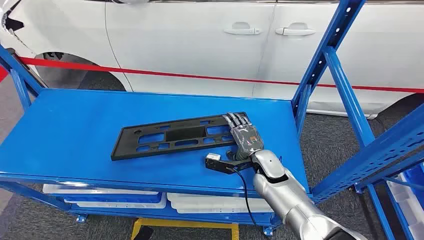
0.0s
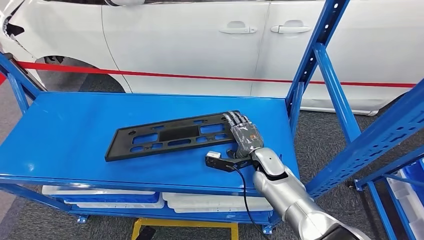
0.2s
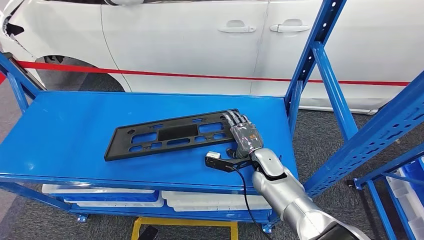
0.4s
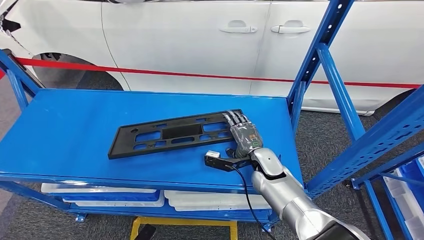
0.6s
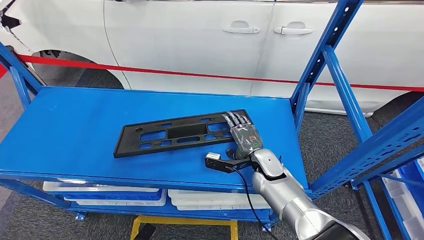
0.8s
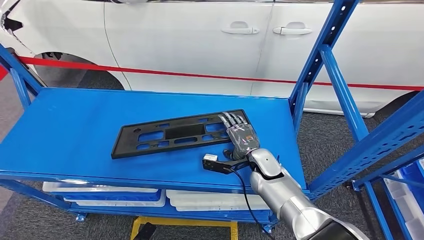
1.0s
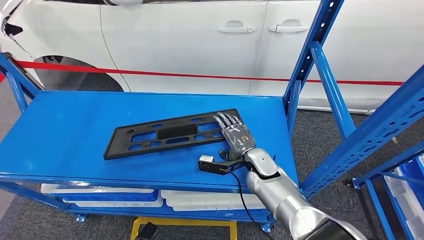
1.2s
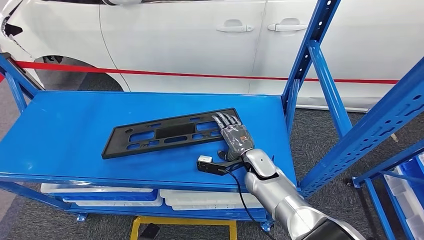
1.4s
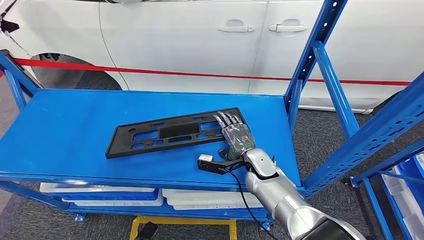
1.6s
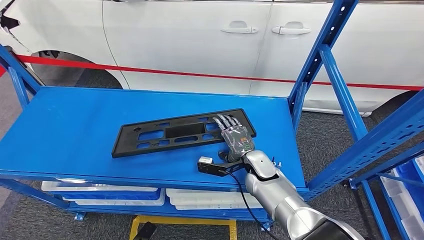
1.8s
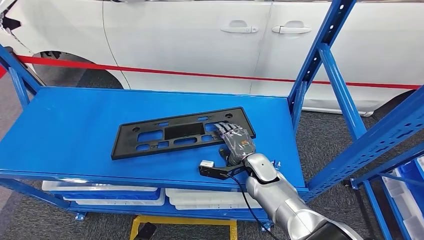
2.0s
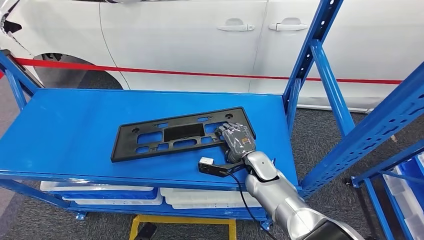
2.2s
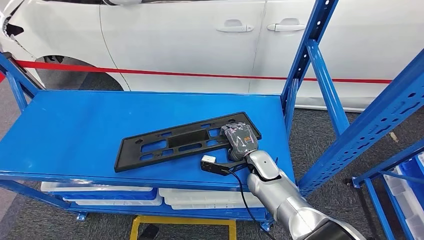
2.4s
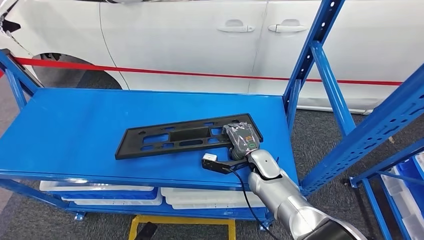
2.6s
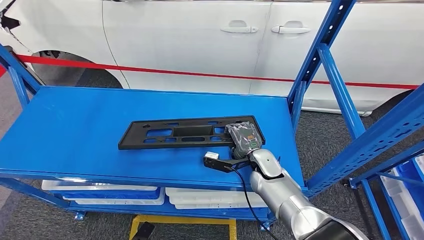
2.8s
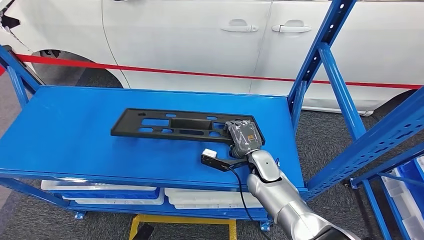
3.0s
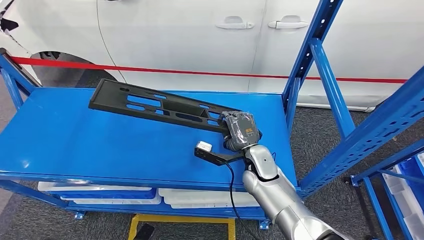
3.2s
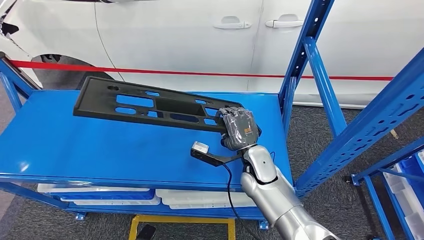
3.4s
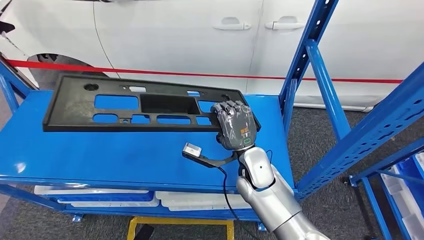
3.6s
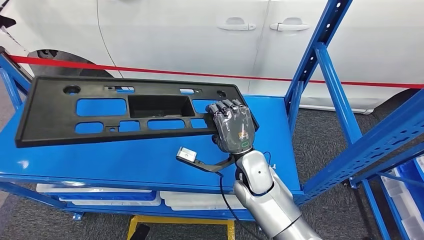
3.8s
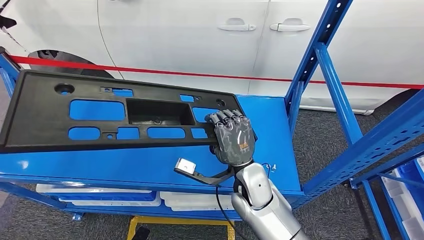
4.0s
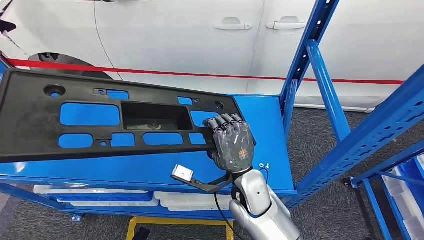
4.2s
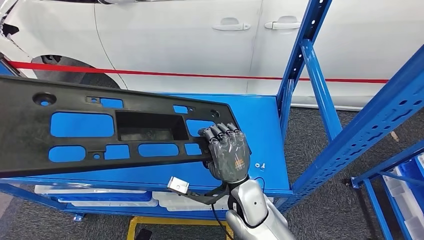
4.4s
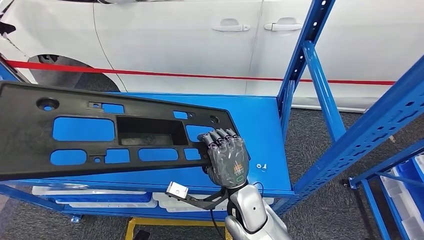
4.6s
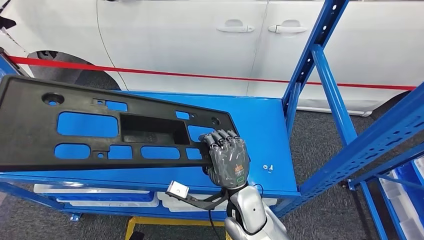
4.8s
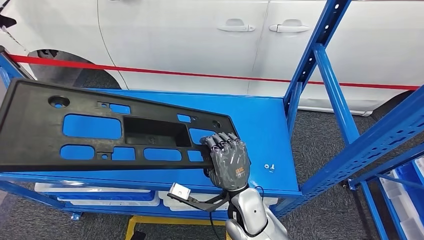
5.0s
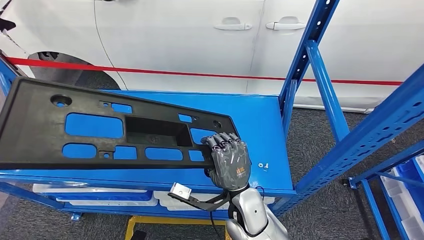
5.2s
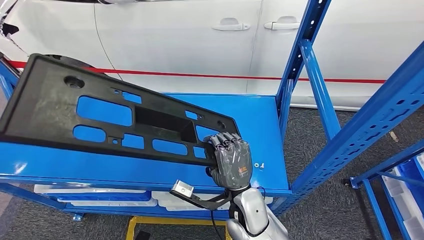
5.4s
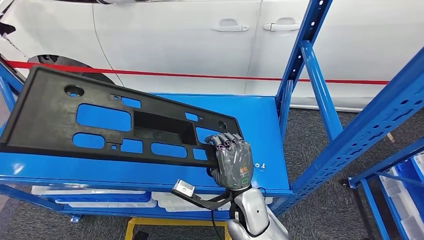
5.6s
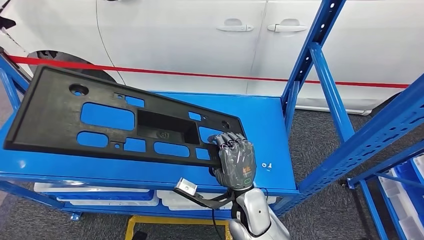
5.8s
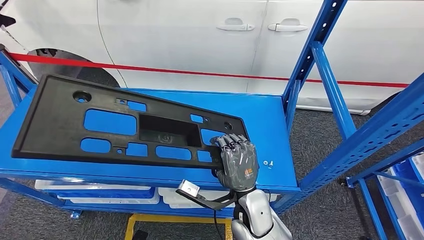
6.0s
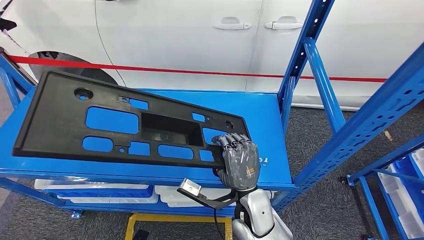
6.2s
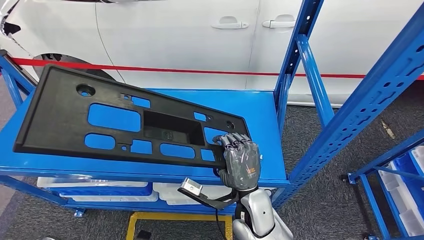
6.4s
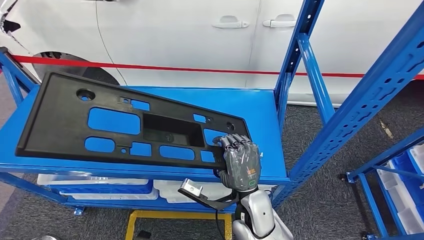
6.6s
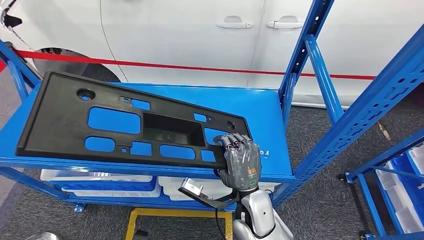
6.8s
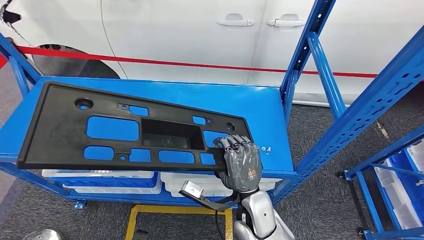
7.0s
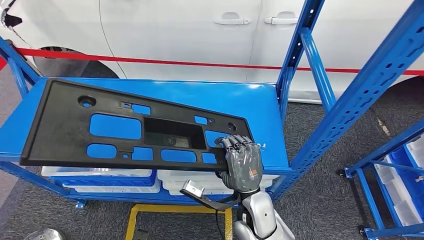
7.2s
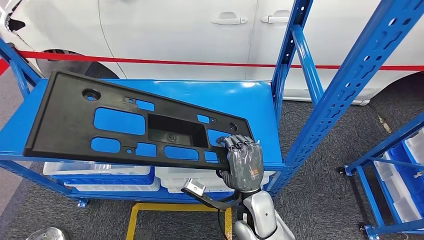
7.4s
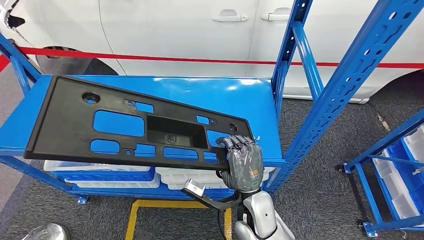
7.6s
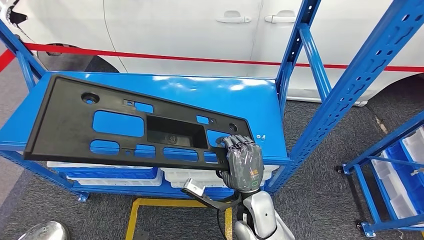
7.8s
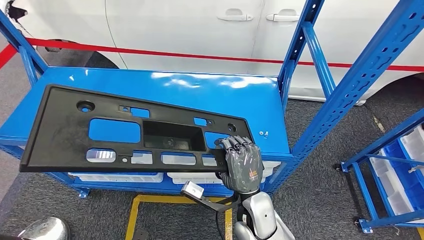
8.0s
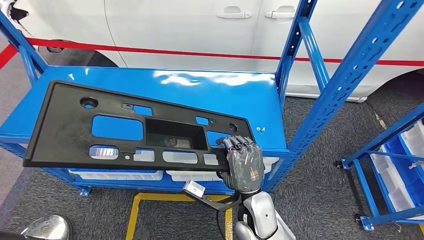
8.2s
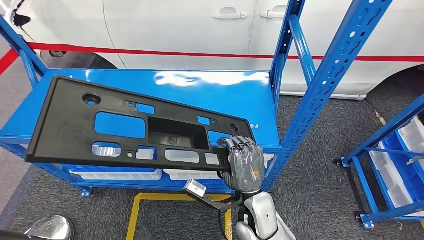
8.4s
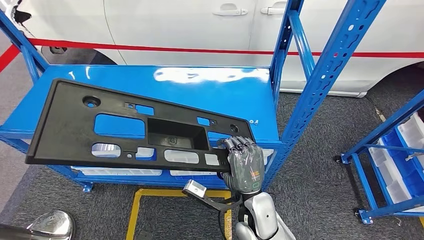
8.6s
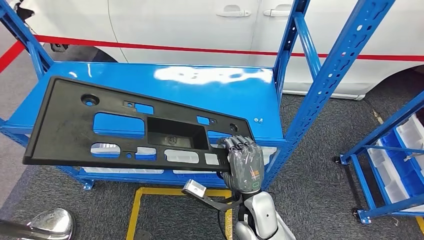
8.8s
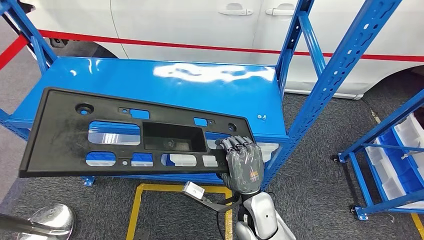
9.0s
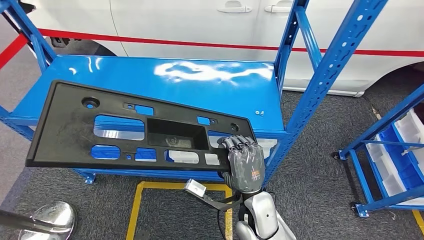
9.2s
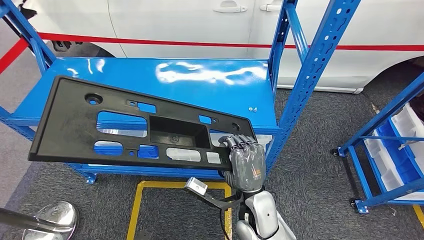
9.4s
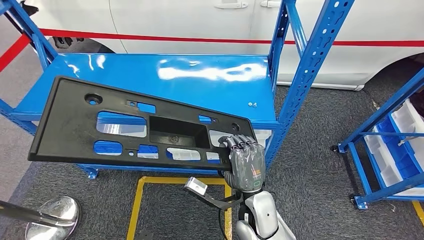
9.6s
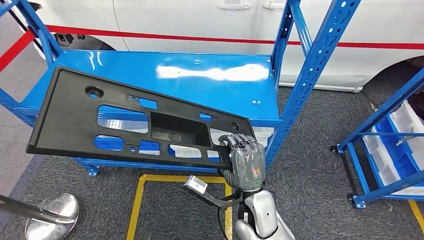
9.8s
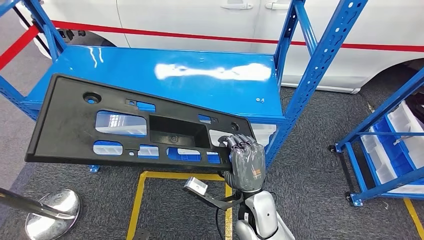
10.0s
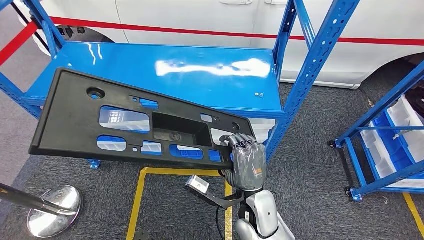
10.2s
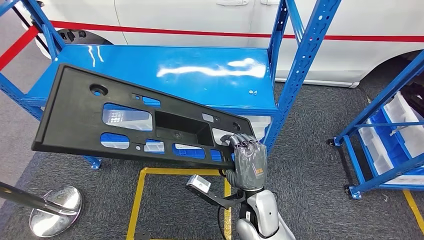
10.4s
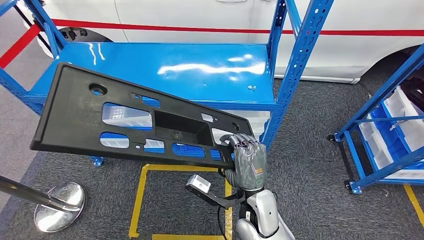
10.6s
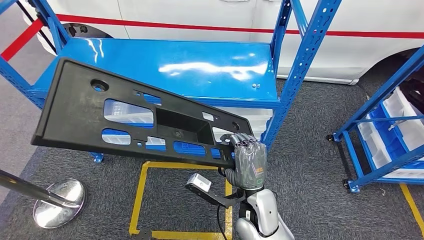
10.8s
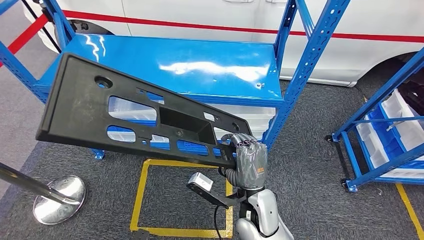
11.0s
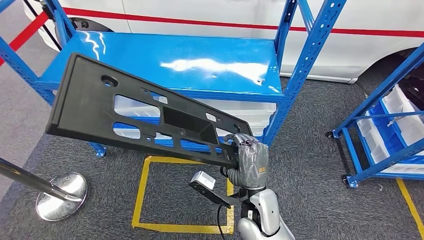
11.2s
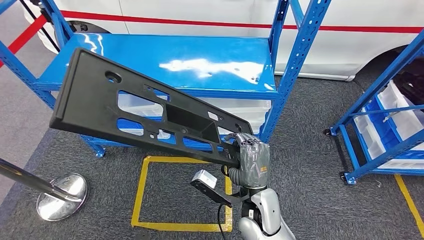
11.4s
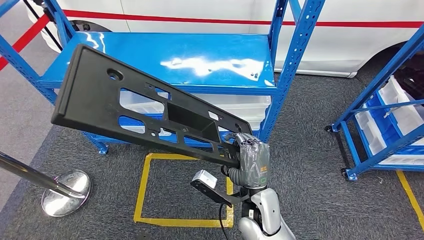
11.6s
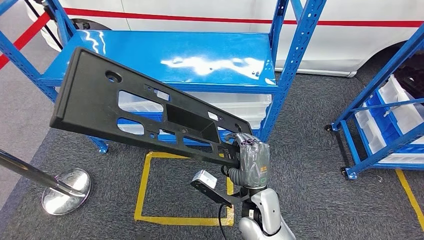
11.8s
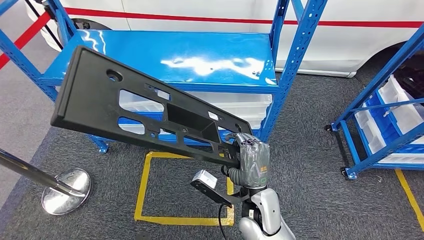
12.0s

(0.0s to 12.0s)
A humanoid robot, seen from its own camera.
Step, 0.0s - 6.8s: Pick up the large material from the shelf.
1.6s - 3.0s: The hands move only a little.

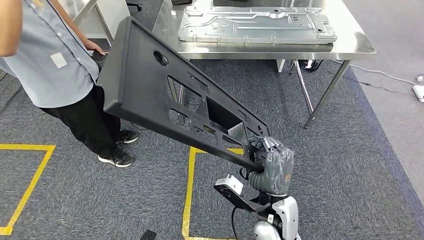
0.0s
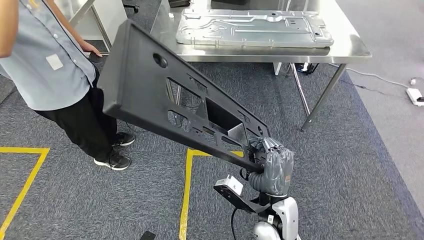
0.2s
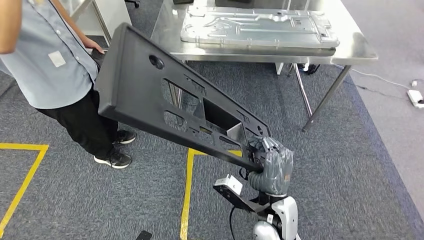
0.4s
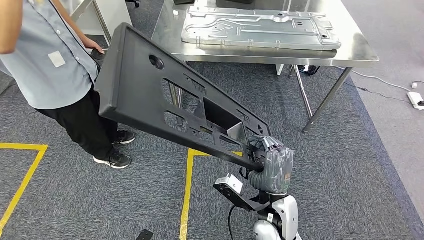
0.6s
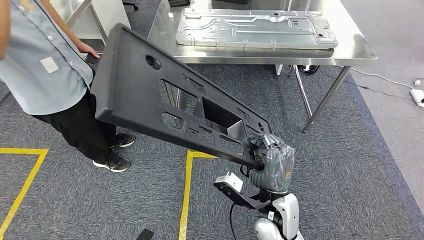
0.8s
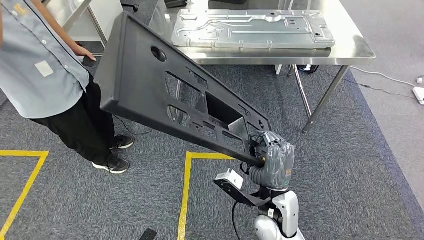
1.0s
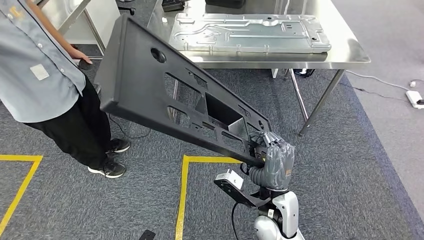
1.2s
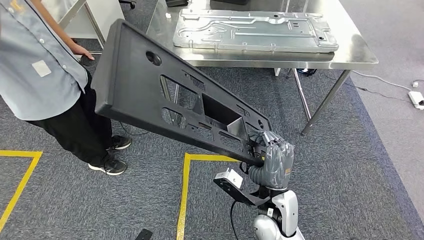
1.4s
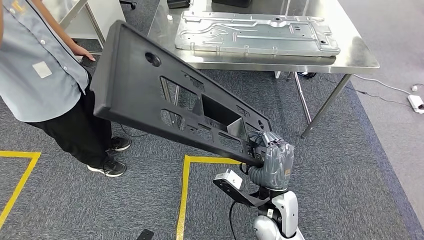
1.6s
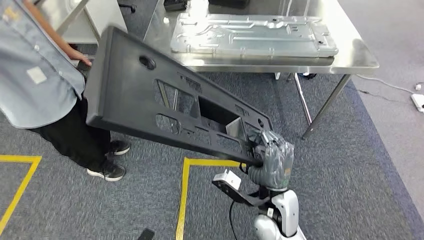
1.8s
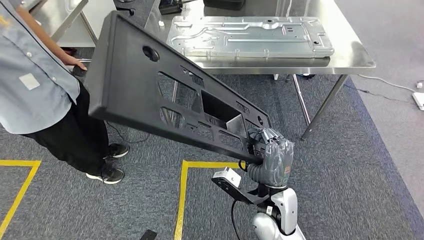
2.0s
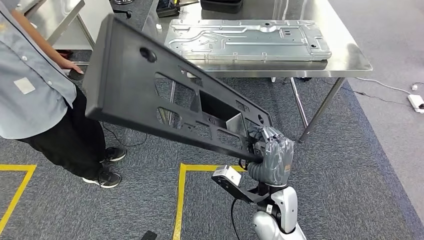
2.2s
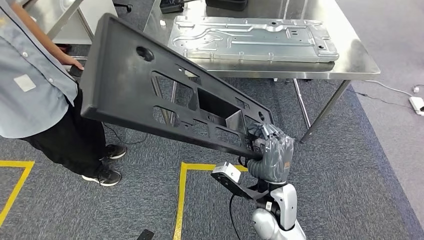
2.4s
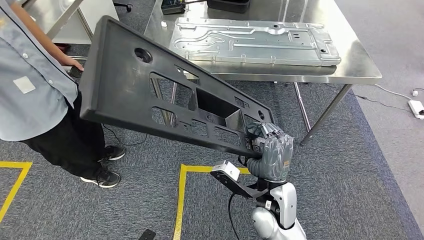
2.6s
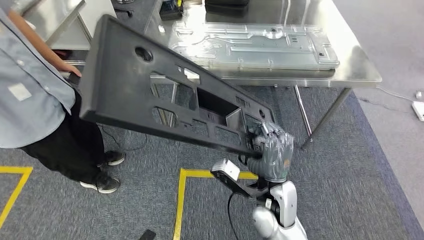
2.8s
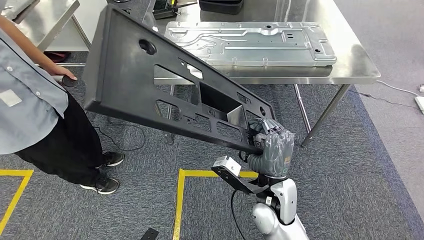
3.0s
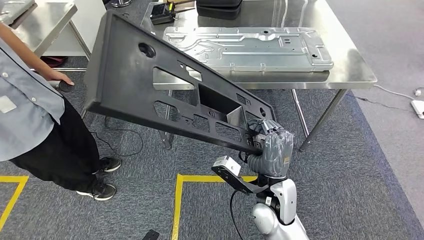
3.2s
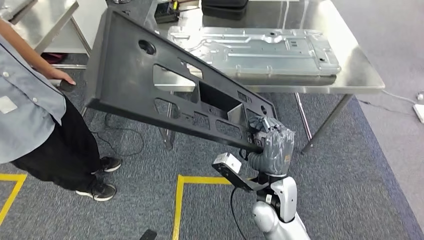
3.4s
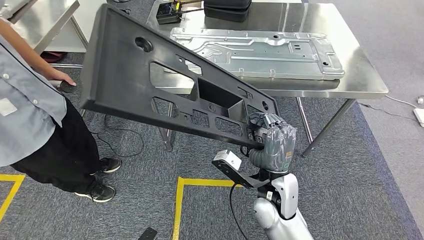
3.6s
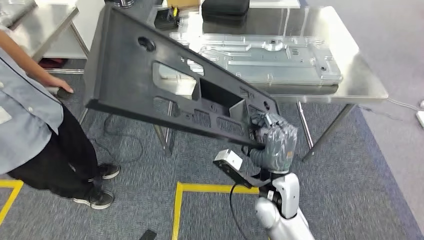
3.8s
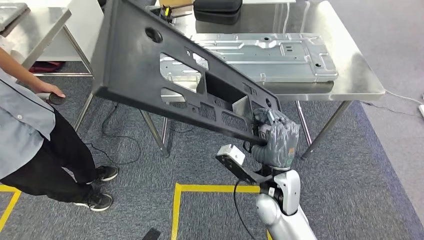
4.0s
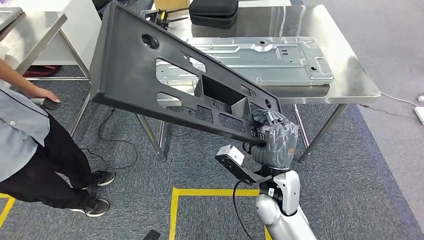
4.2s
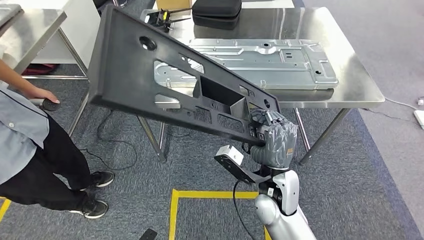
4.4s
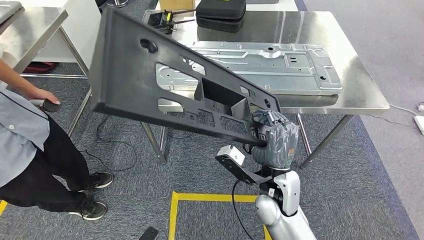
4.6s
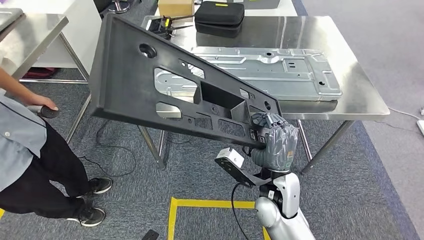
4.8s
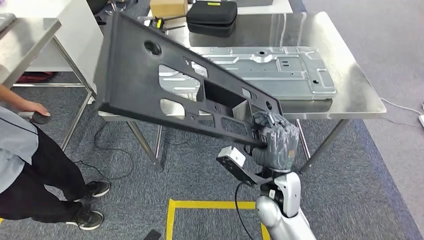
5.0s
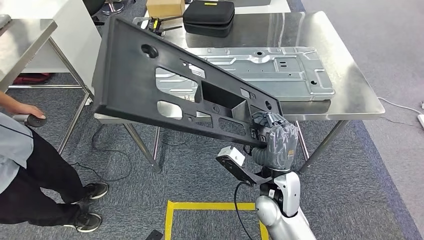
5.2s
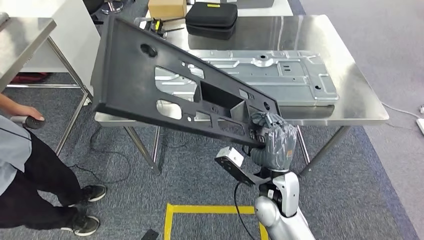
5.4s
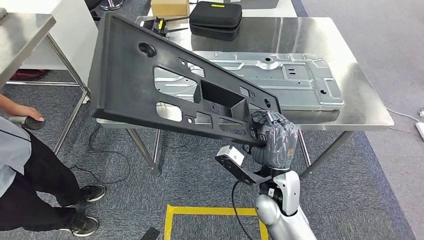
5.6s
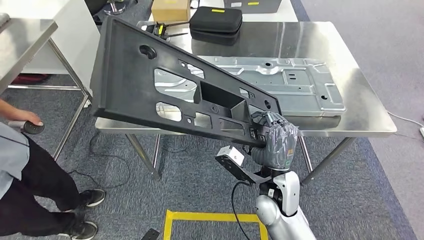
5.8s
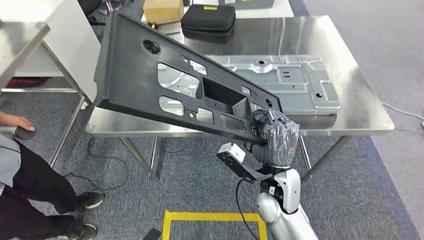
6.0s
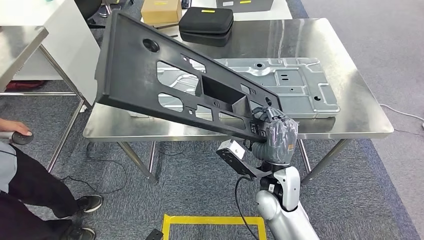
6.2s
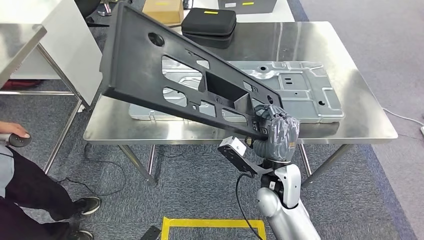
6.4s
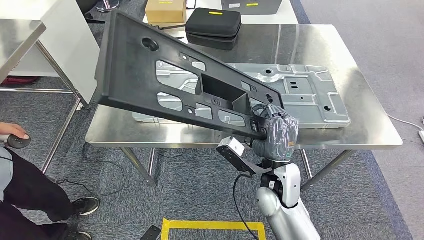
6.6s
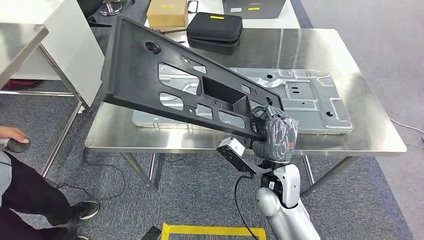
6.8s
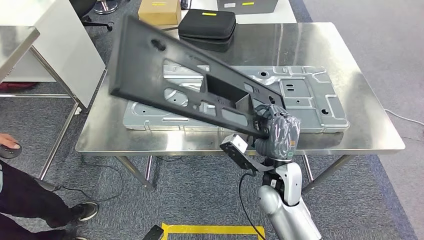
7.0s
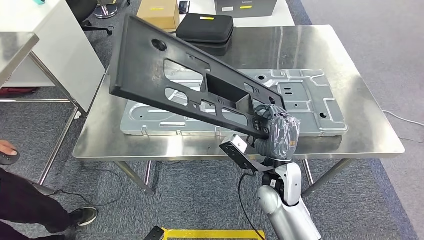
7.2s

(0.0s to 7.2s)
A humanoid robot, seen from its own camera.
Step, 0.0s - 6.0s: Move the large material to the workbench.
